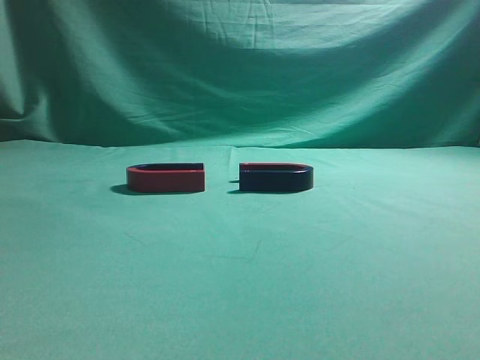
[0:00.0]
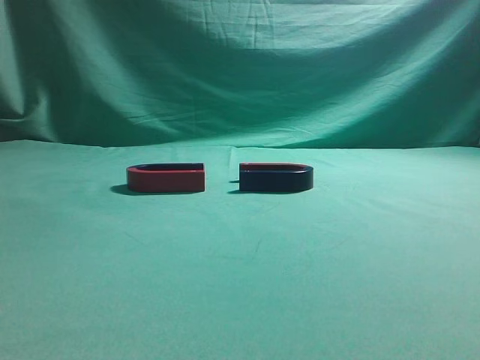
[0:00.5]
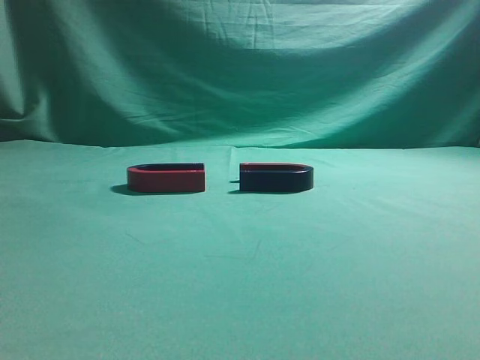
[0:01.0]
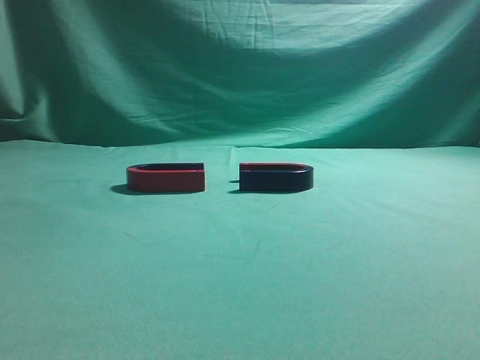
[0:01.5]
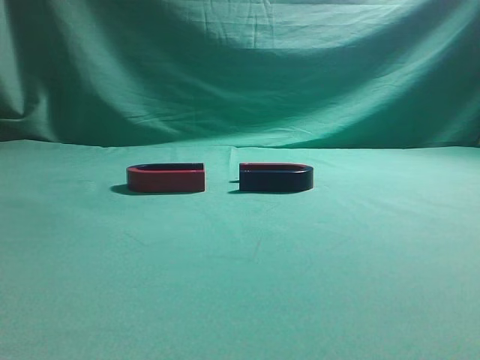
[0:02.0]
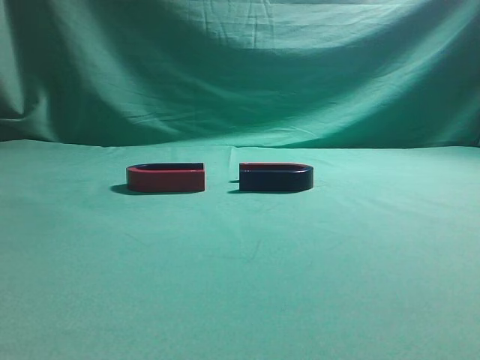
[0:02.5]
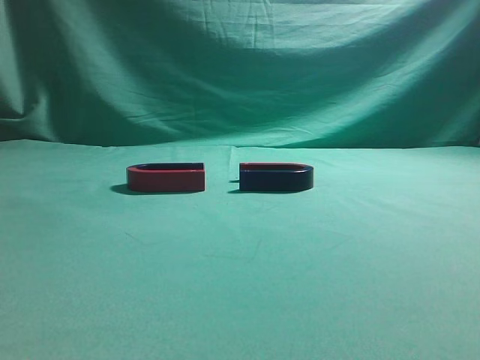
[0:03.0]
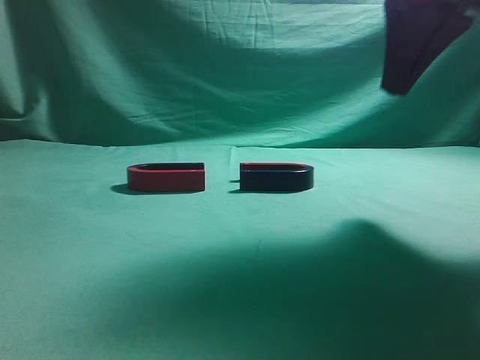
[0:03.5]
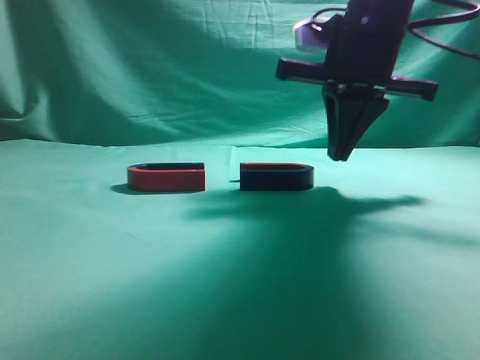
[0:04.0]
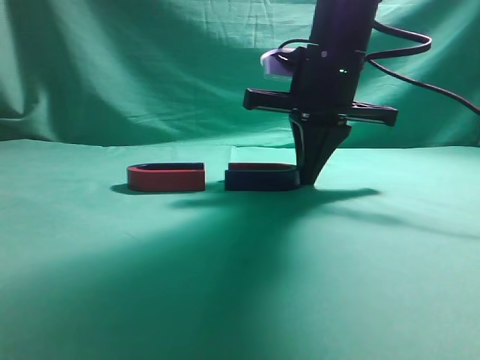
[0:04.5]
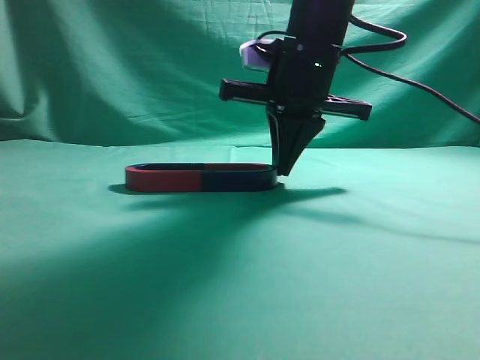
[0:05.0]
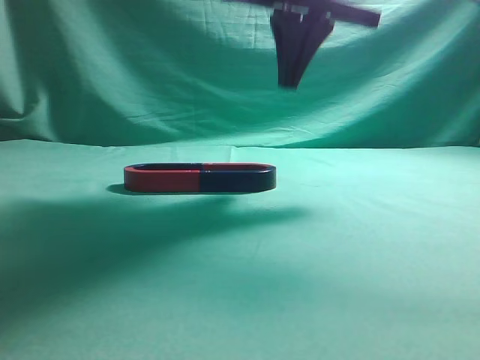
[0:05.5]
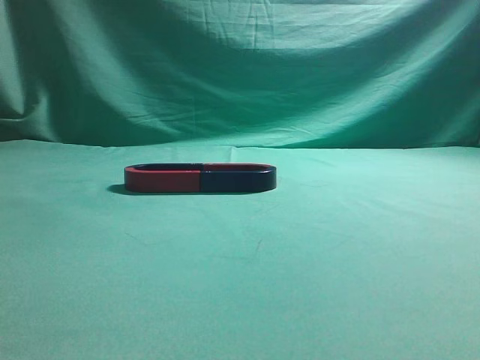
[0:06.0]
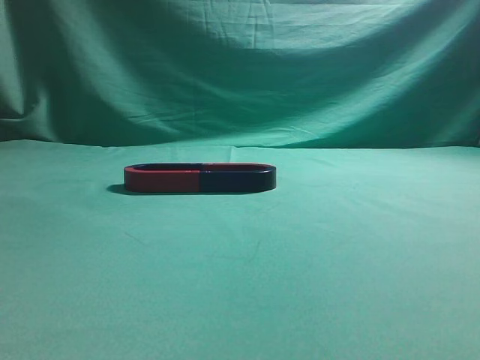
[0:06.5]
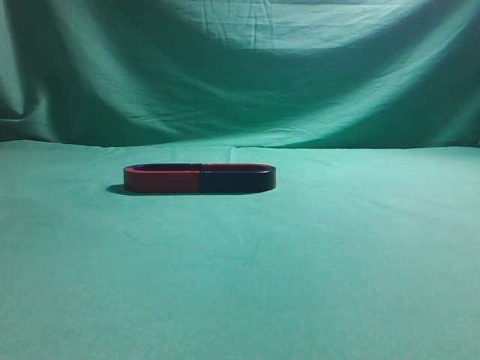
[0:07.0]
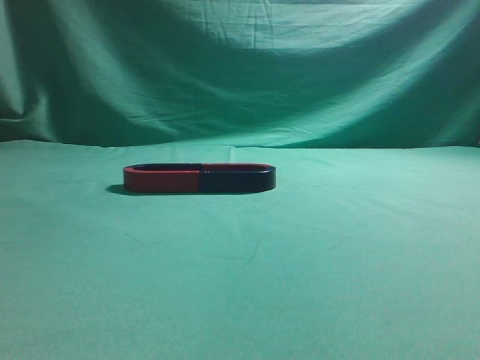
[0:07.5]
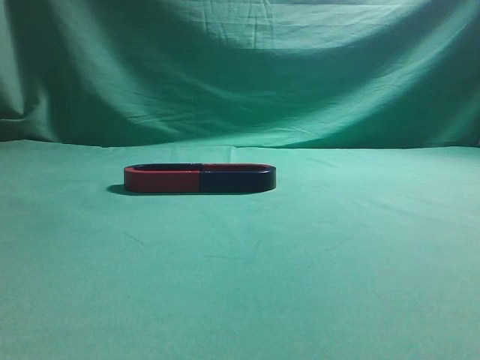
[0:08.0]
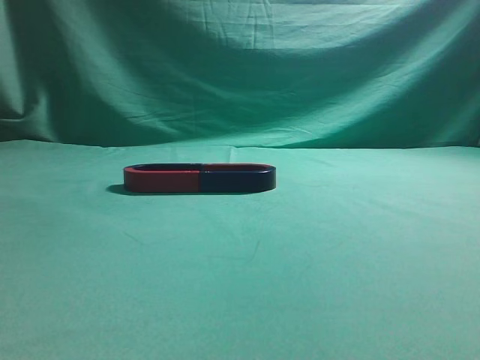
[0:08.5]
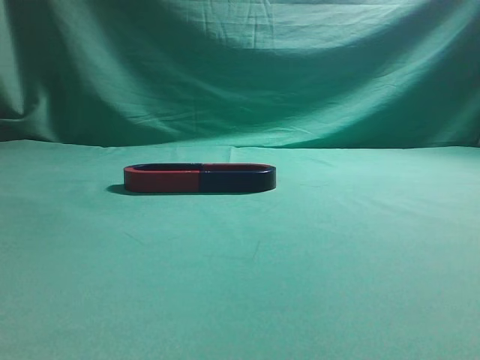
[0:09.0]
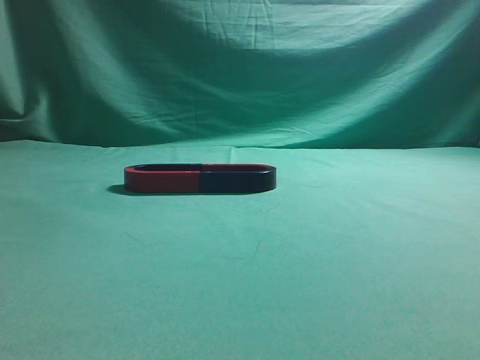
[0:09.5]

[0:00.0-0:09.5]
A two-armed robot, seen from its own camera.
Task of the whole recording: push the magnet on the table from its original position to another position.
Step, 0:00.0 to 0:05.0: Push the magnet on the right to connect the magnet on the left.
0:02.0 to 0:04.0: The right gripper is displaced forward and to the left by some 35 cm.
0:04.0 to 0:05.5: The right gripper is displaced upward and to the left by roughly 10 cm.
0:05.5 to 0:07.5: The right gripper shifts some 50 cm backward and to the right.
